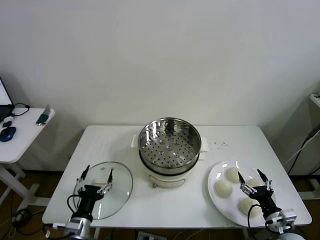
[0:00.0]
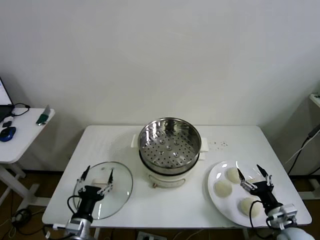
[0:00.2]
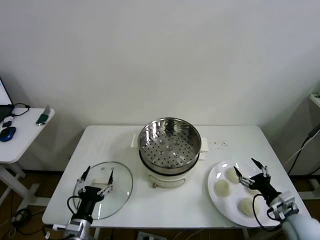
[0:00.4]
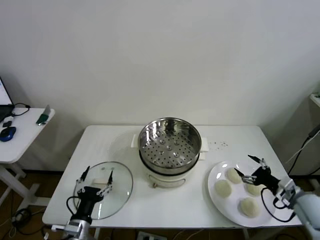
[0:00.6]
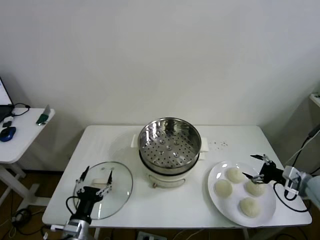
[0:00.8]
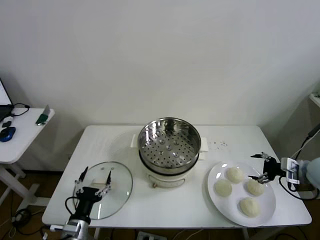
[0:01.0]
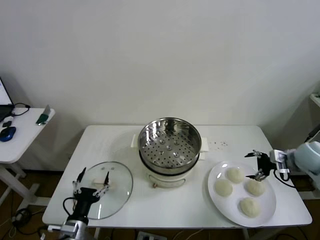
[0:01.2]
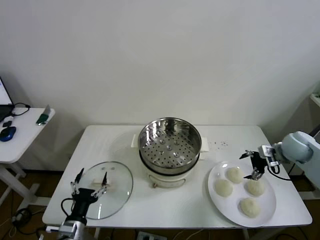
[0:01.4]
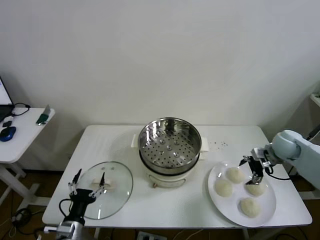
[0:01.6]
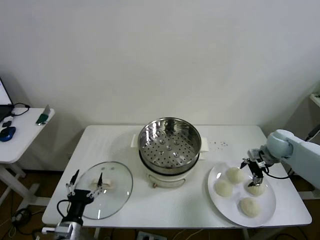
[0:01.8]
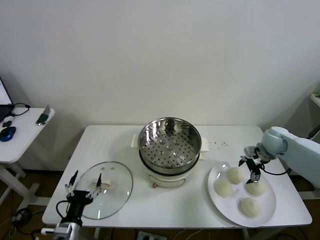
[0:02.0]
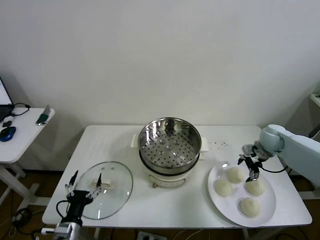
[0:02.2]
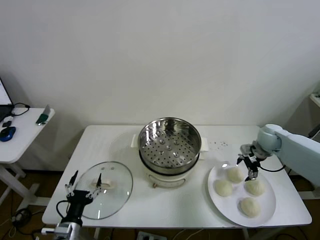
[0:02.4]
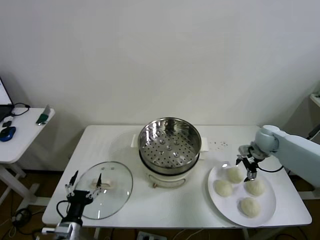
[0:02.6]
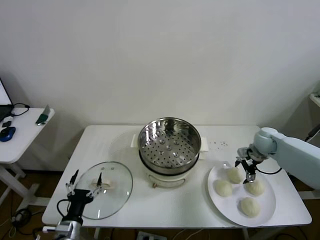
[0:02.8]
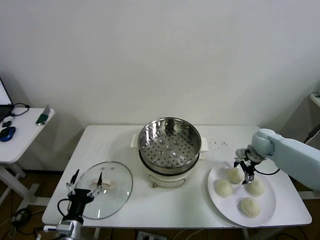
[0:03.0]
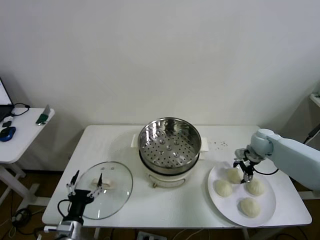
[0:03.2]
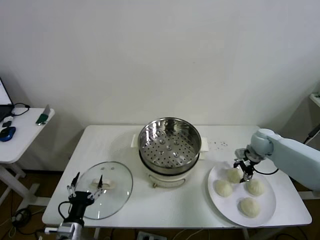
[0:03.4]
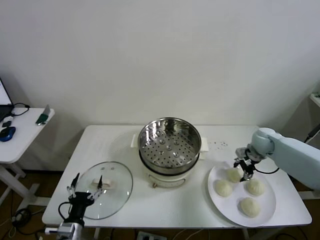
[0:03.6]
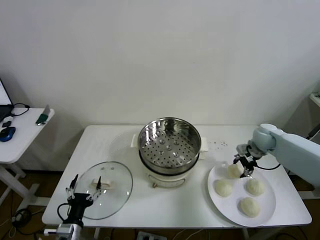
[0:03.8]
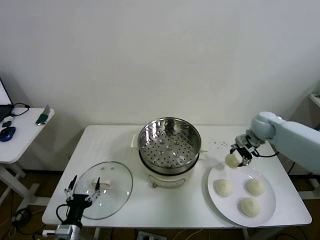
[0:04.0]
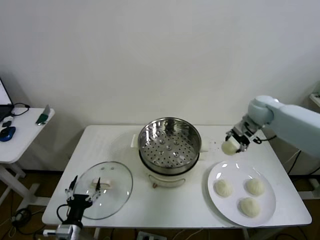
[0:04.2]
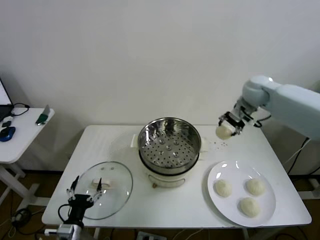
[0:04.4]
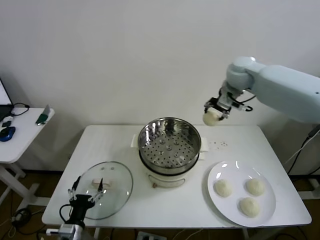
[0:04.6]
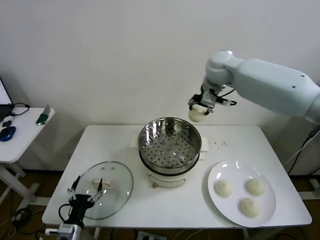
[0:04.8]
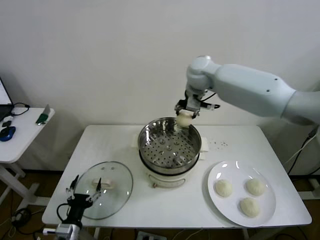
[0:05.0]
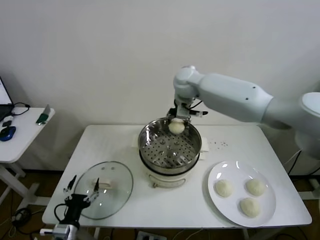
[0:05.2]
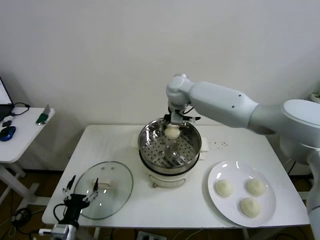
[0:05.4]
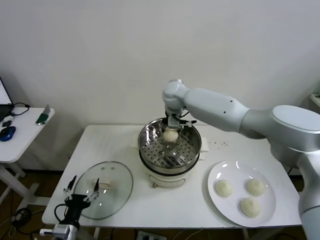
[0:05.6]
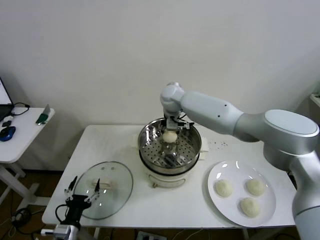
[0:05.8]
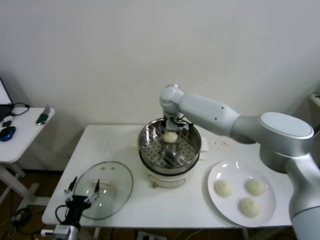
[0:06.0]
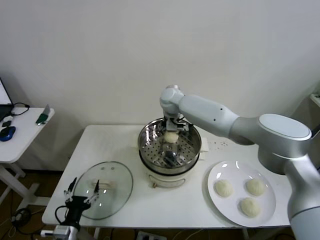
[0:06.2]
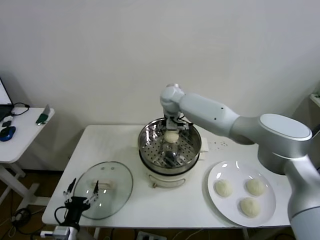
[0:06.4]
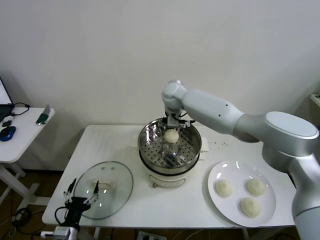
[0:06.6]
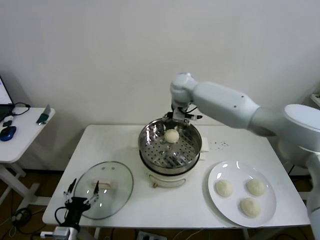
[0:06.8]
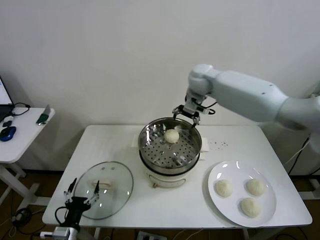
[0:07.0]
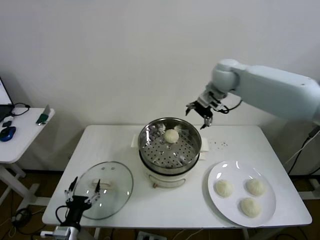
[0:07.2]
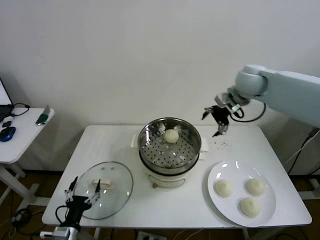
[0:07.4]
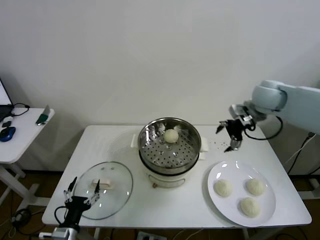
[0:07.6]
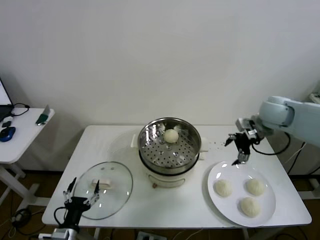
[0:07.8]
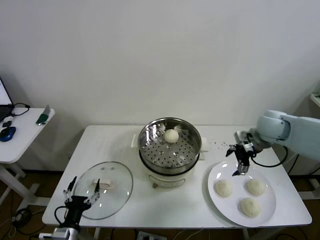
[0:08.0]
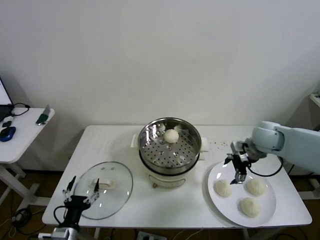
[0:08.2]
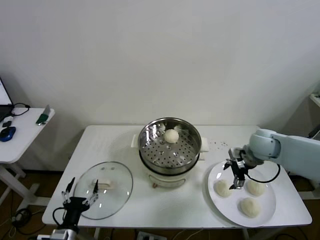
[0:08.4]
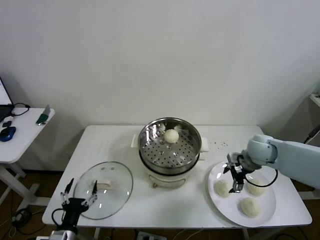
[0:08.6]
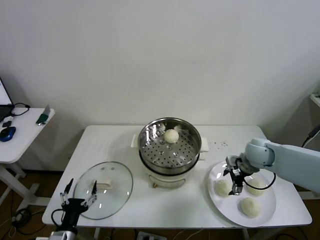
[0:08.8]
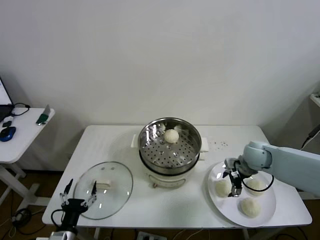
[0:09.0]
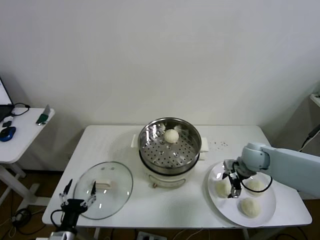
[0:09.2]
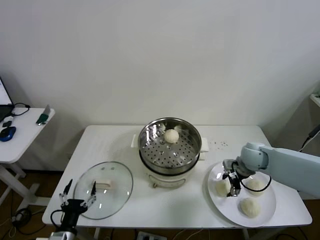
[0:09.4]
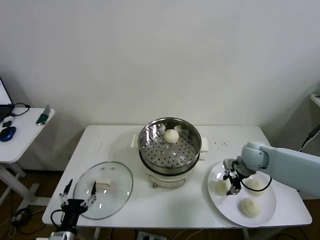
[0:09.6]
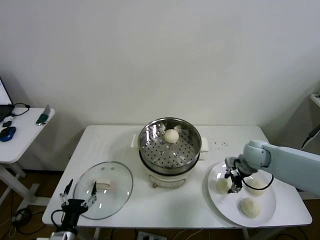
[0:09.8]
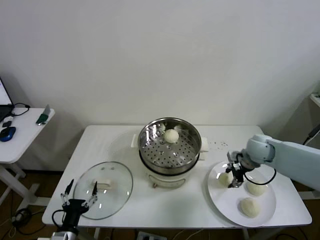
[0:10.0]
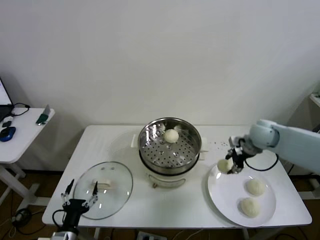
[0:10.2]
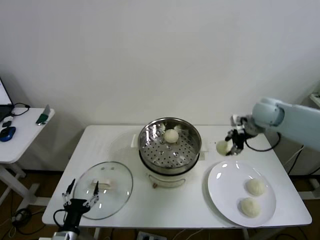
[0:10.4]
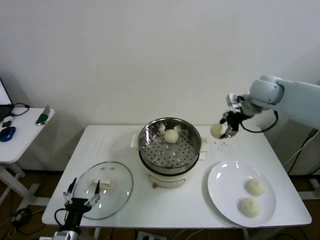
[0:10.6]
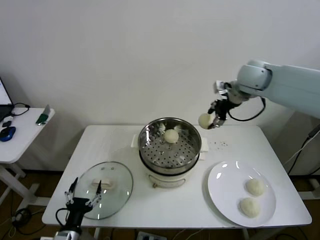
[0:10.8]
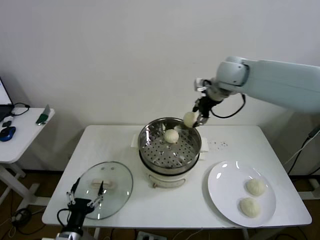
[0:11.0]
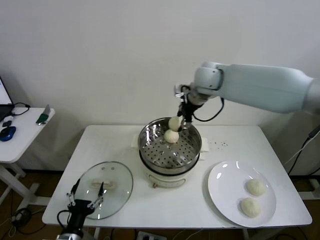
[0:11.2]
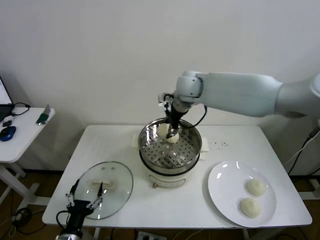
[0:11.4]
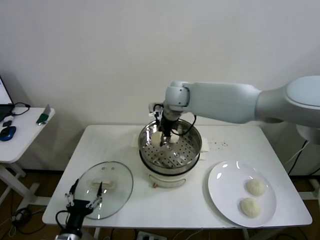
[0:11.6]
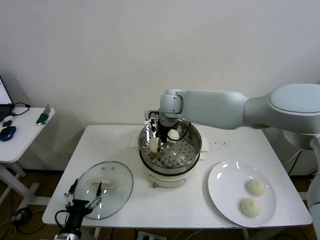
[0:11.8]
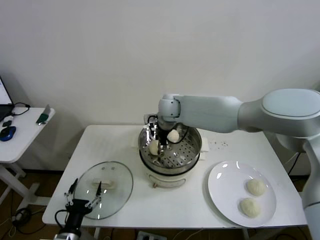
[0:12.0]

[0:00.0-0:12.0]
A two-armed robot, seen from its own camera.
Step, 0:00.0 to 0:03.2: Grasp the baozi in the plate with right gripper.
Step, 0:03.4 to 0:06.2: Place the baozi on the steamer with right gripper.
Step, 0:06.4 to 0:09.2: Grasp the baozi in the plate with right gripper.
0:01.6 to 0:03.0: The right gripper shifts by approximately 5 cm.
0:03.0 to 0:04.4: The right gripper travels upward and to the left by roughly 20 cm, and closes.
0:04.4 to 0:06.0: The right gripper heads to the left, covering some 30 cm.
0:06.0 to 0:07.6: The right gripper travels to the right by approximately 30 cm, and opens.
0:07.6 to 0:09.0: The right gripper goes some 20 cm downward.
0:09.0 to 0:10.4: The right gripper is displaced upward and forward by about 15 cm, and closes.
0:10.4 to 0:12.0: The right gripper travels to the left by roughly 30 cm.

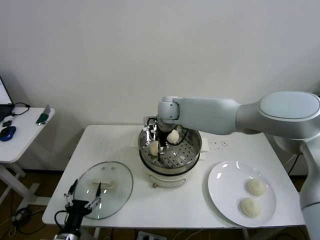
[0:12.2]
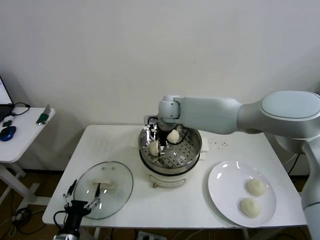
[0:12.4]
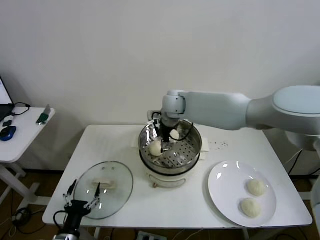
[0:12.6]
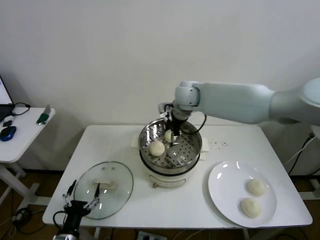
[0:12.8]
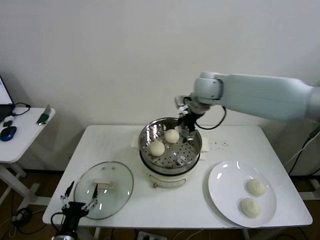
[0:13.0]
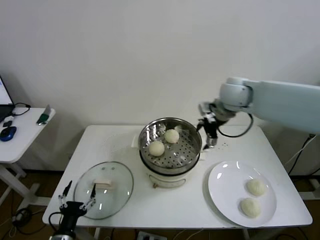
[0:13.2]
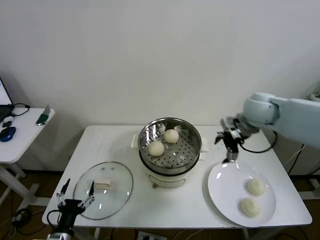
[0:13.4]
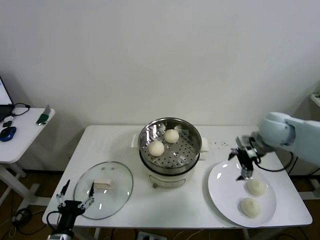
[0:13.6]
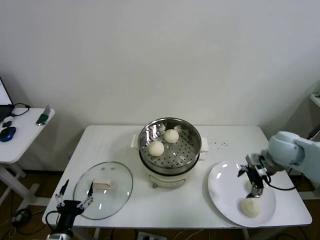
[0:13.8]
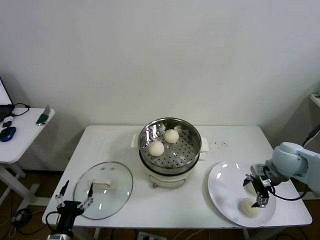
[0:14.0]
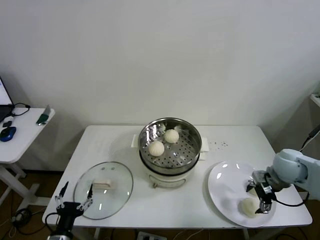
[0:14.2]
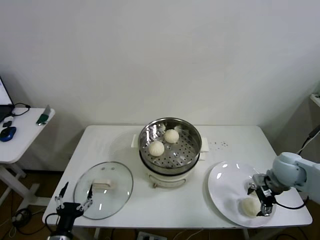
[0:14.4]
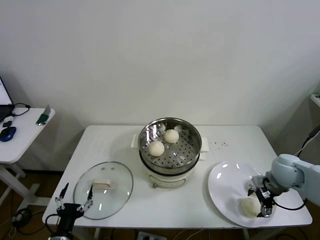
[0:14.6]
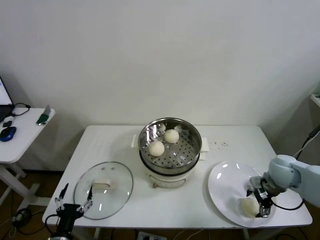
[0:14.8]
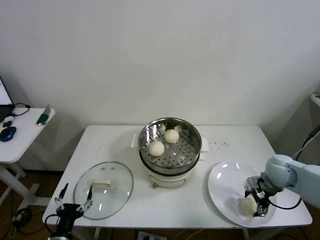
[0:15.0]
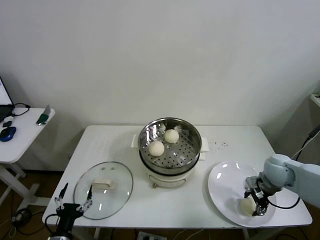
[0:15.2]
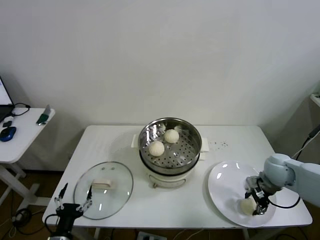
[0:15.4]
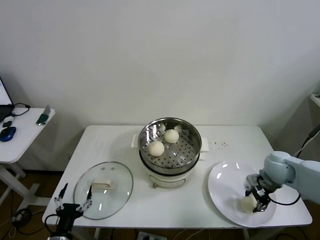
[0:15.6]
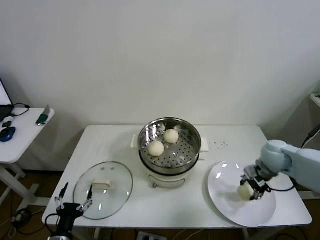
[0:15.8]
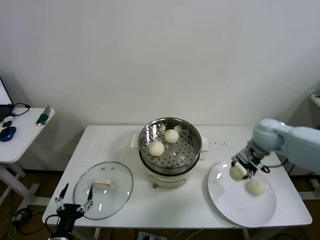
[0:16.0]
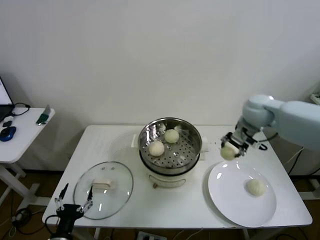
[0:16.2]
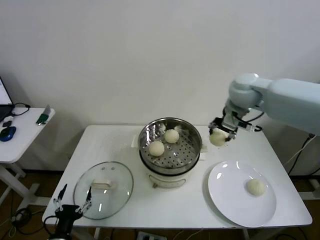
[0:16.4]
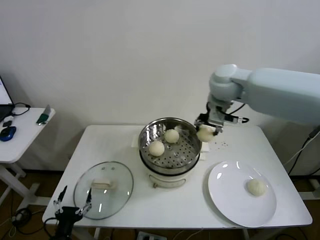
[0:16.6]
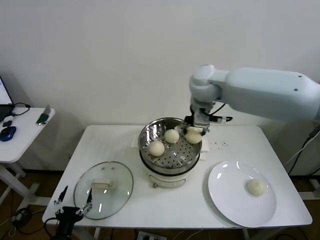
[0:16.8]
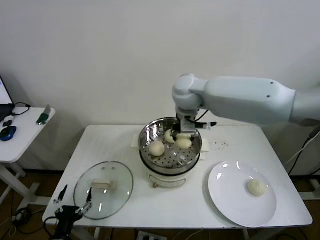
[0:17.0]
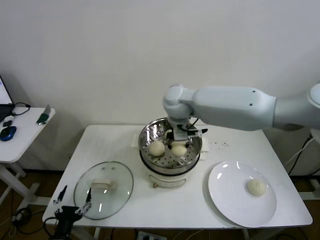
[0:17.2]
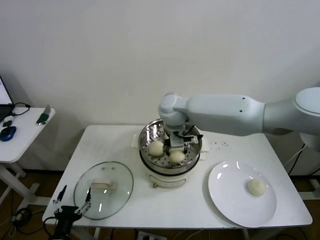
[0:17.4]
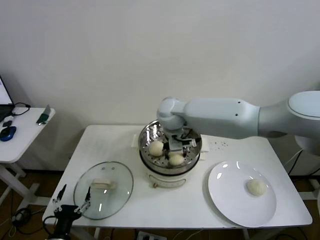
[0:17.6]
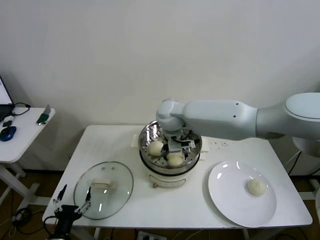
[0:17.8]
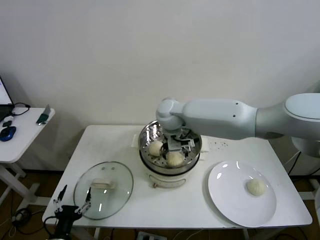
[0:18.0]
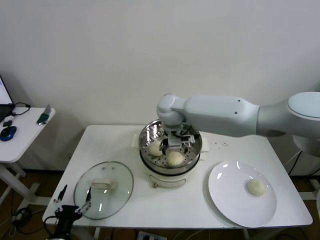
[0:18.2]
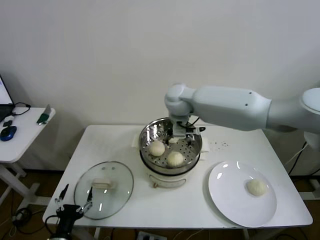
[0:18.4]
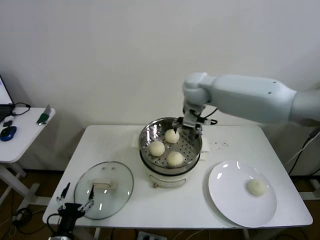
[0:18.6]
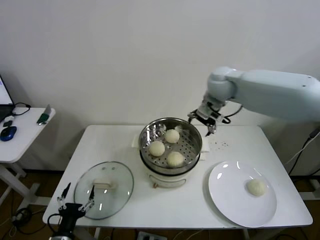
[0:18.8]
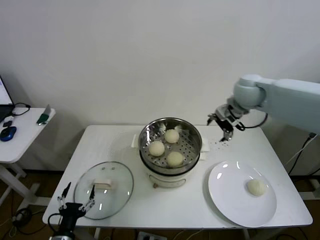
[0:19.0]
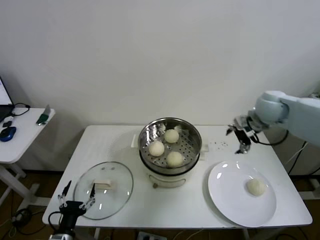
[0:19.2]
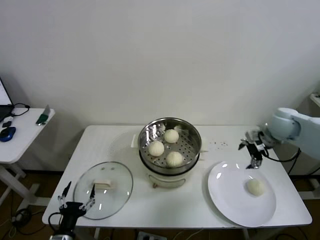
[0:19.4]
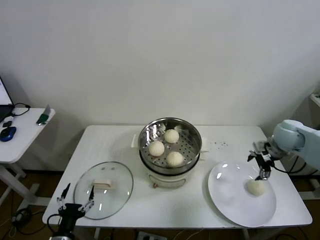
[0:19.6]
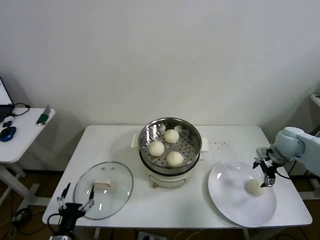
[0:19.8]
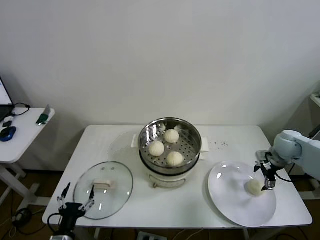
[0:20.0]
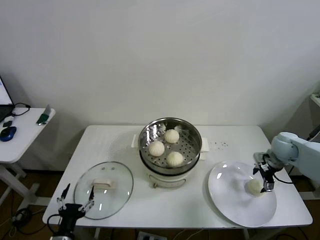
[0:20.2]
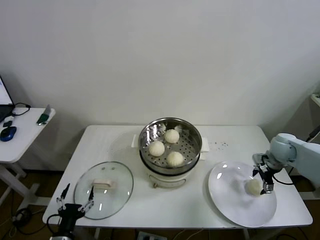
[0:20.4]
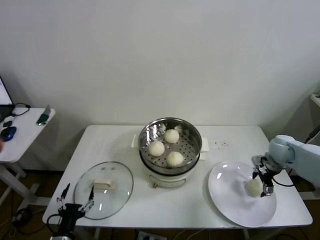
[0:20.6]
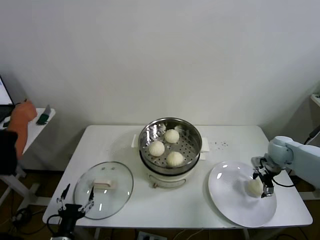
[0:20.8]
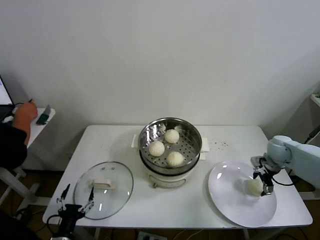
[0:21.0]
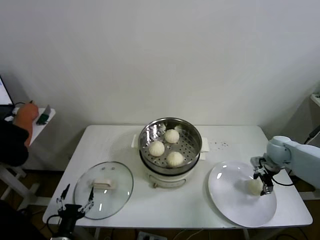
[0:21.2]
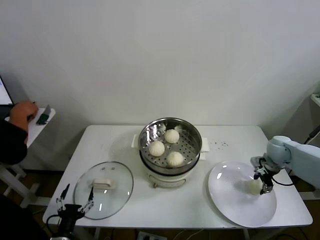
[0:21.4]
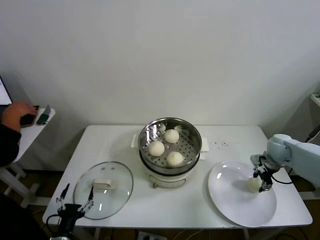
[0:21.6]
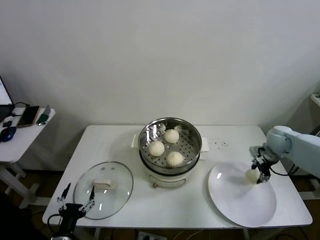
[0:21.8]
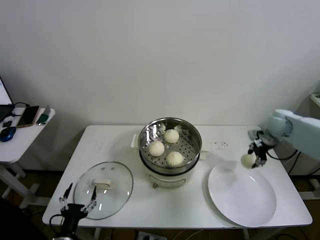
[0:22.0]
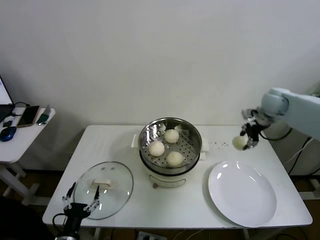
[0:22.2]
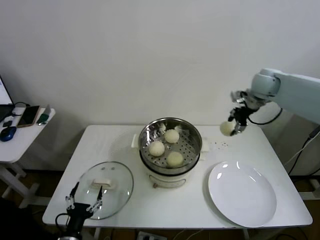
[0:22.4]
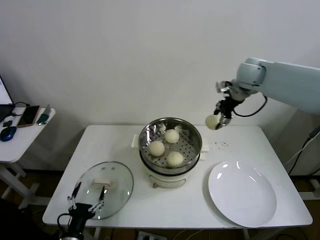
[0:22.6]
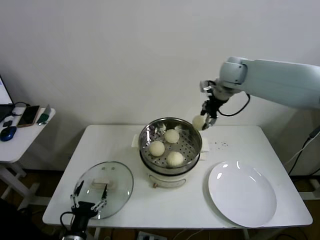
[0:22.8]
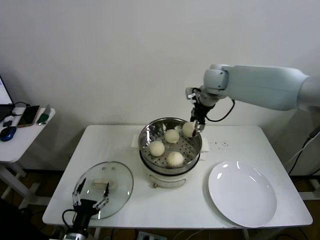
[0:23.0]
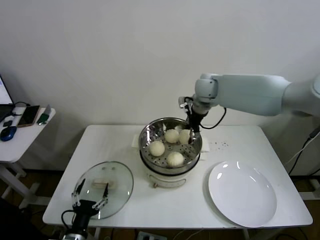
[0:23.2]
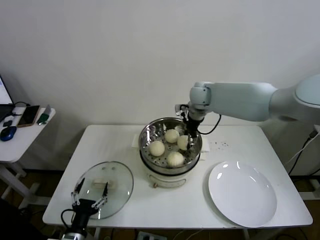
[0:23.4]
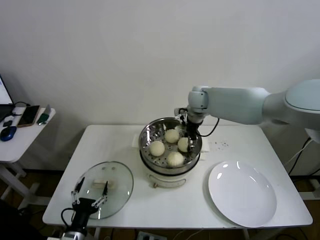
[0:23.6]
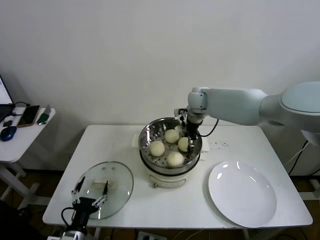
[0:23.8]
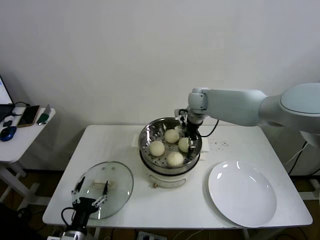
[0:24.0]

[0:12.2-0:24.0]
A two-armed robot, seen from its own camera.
Step, 0:12.4 to 0:15.2: Grasp the baozi in the plate with right gripper.
Step, 0:15.4 to 0:18.0: Place the baozi on the steamer with right gripper.
Step, 0:18.2 to 0:21.0: Grasp the baozi in the plate with right gripper.
Step, 0:21.2 to 0:24.0: Place the baozi on the steamer with right gripper.
0:12.2 to 0:13.6: The right gripper is displaced to the right by roughly 30 cm.
0:13.6 to 0:15.2: The right gripper travels downward and backward by approximately 15 cm, and closes.
0:15.2 to 0:16.6: The right gripper heads upward, to the left and forward, covering some 35 cm.
0:16.6 to 0:18.2: The right gripper heads to the left and downward, covering roughly 20 cm, and opens.
0:18.2 to 0:19.6: The right gripper moves to the right, about 40 cm.
0:19.6 to 0:21.0: The right gripper moves downward, some 10 cm.
0:21.0 to 0:22.6: The right gripper is displaced upward, to the left and forward by about 30 cm, and closes.
0:22.6 to 0:24.0: The right gripper travels to the left and downward by roughly 20 cm.
